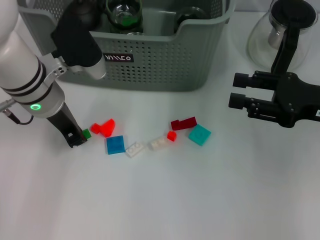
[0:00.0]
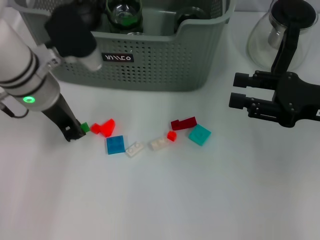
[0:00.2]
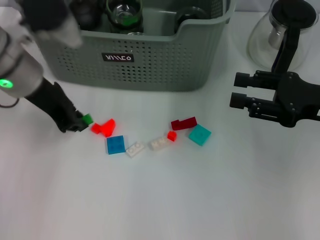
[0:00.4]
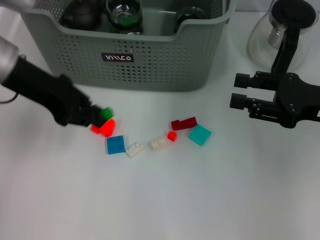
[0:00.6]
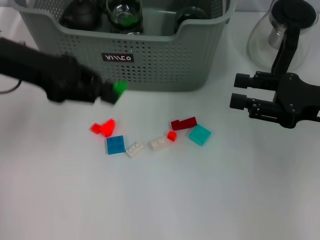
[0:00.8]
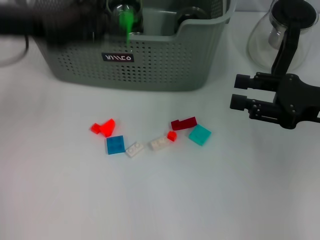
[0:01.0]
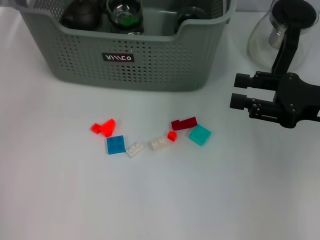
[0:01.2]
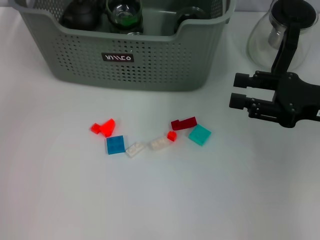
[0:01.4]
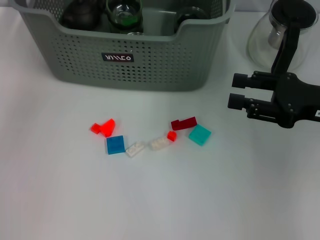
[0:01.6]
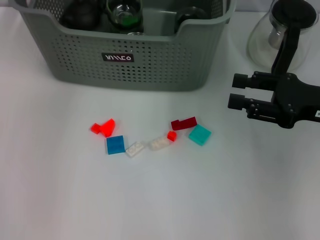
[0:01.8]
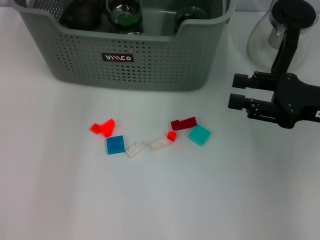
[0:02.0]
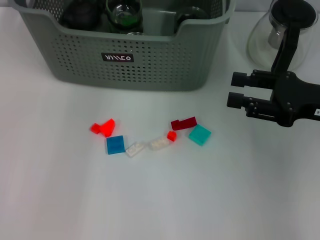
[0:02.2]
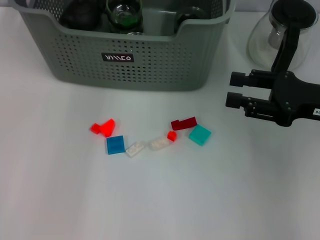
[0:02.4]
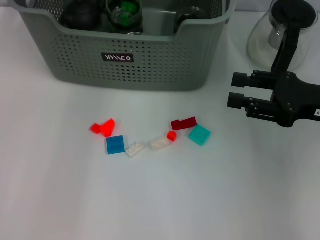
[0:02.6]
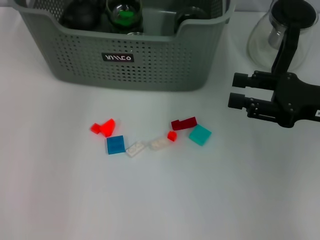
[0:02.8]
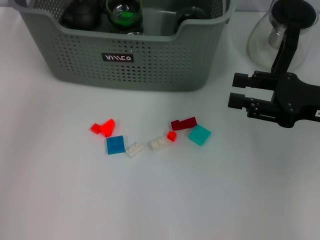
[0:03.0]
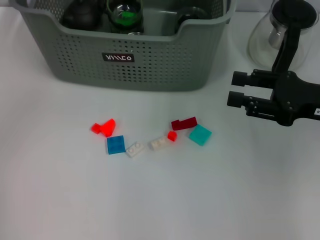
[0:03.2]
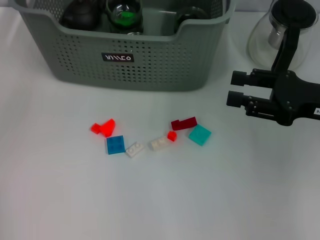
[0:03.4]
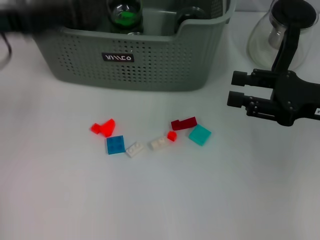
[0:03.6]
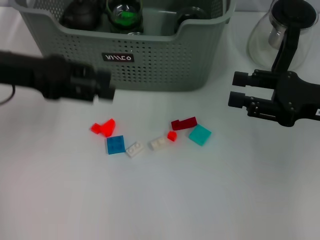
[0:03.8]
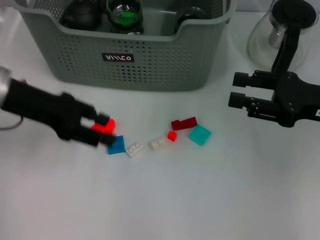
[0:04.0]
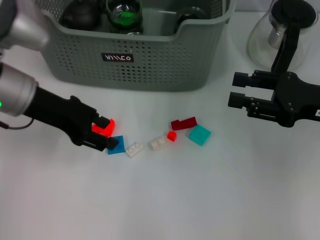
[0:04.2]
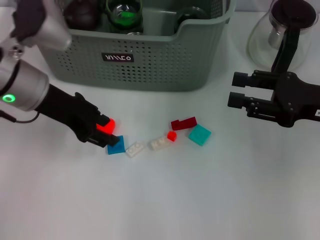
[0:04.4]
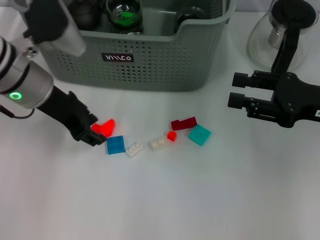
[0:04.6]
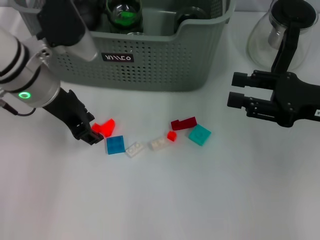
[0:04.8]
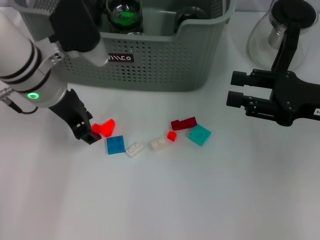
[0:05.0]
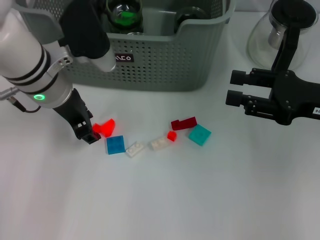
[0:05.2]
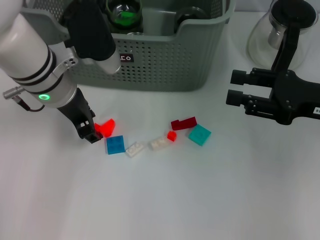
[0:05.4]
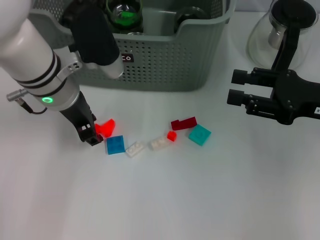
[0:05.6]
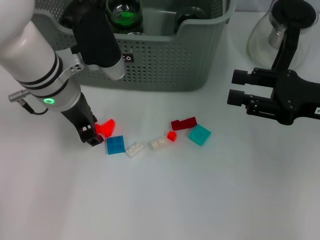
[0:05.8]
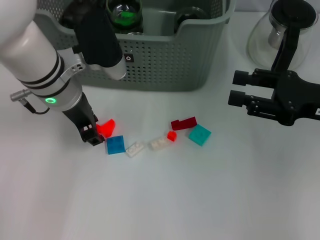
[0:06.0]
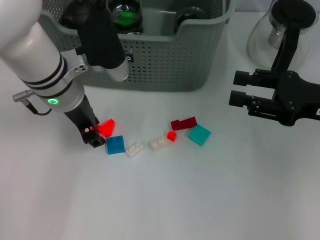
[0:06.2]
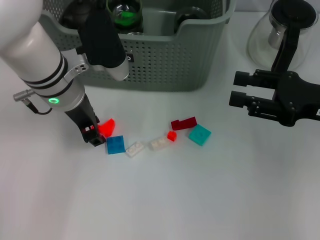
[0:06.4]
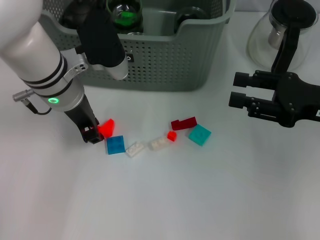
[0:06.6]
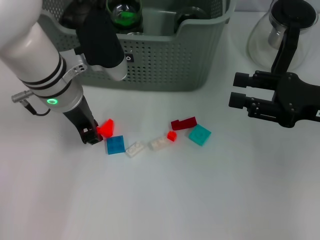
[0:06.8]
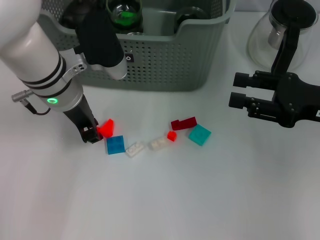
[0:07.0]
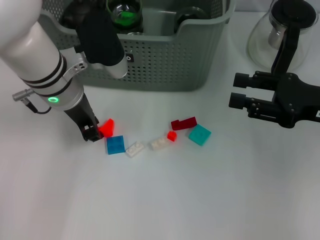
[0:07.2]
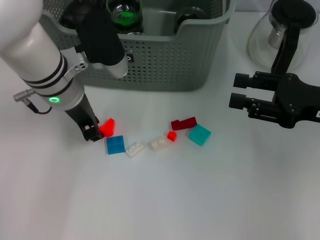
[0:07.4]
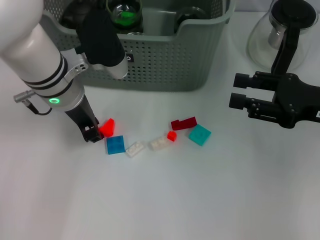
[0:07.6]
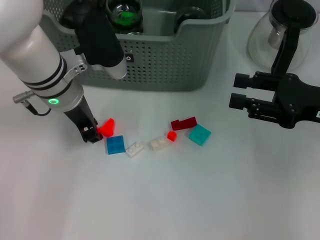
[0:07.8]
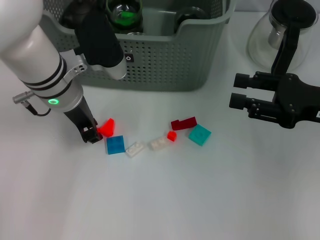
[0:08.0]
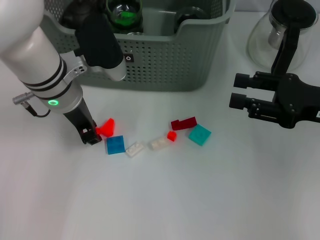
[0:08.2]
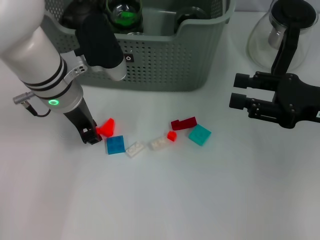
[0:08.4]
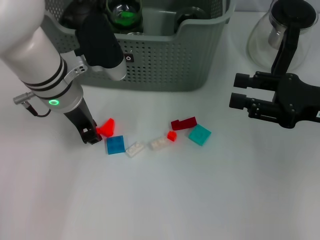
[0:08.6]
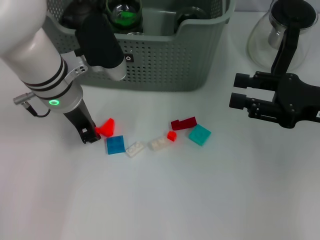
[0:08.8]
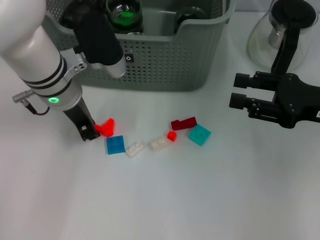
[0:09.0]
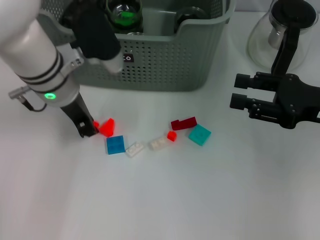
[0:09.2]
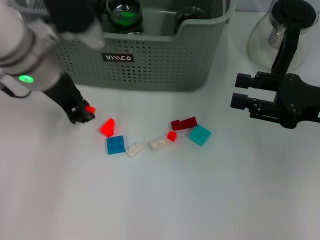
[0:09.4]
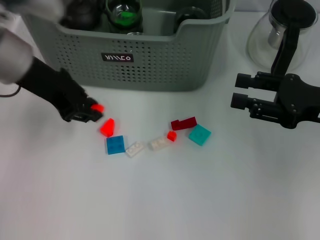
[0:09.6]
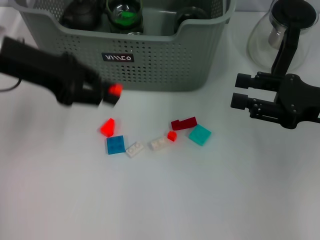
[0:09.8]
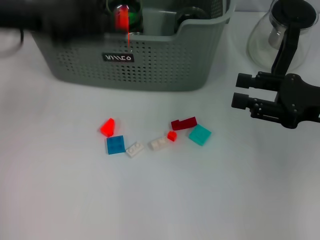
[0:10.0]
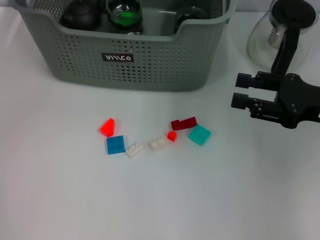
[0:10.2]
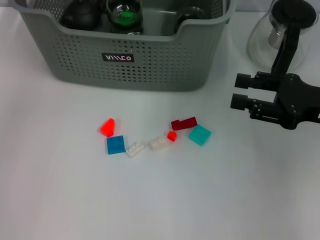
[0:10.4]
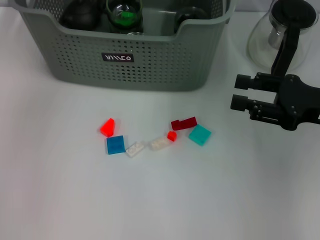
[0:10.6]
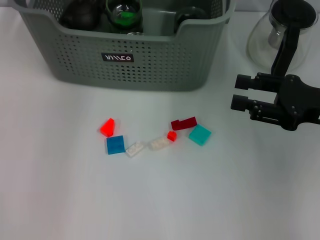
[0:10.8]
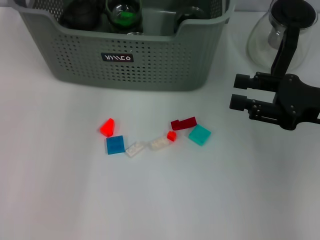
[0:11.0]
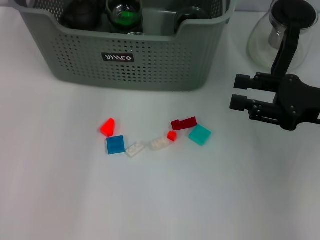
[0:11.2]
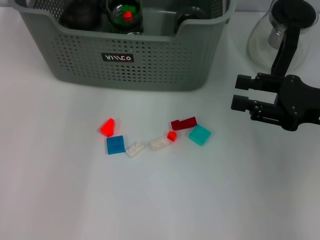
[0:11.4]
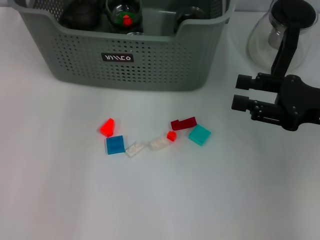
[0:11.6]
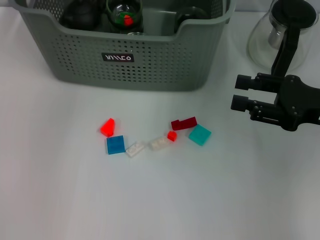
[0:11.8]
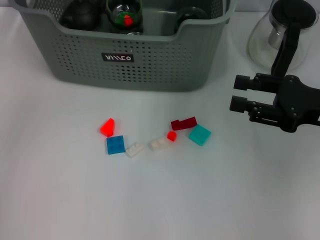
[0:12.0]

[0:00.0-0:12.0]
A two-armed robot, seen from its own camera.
Task of the whole recording: pick up the teacup on the table and place it into the storage bin, pick up the block on the table and place it into the storage bin.
Step, 0:00.0 to 0:02.8: Place the green block in the storage box with left gripper.
Step, 0:03.0 to 0:08.6: Grasp the orange block with left gripper.
Step, 0:09.0 to 0:11.6: Place the orange block in the storage box with left gripper.
0:00.0 to 0:01.6: The left gripper shifts some 20 cm upward and forward.
0:03.0 to 0:04.4: The left gripper travels downward and backward by approximately 15 cm.
0:04.4 to 0:06.0: The left gripper travels to the right by roughly 5 cm.
0:06.0 to 0:09.0: Neither gripper changes place.
0:09.0 to 0:10.4: The left gripper travels upward, forward and to the left by about 20 cm.

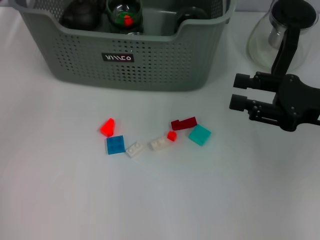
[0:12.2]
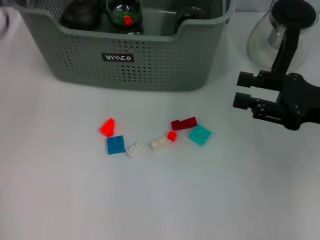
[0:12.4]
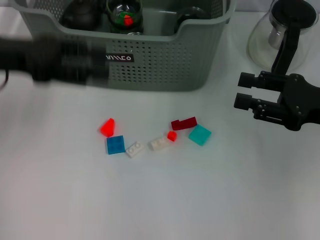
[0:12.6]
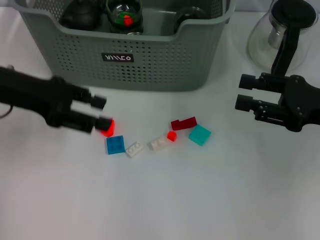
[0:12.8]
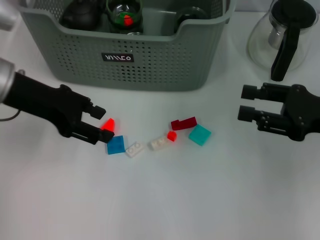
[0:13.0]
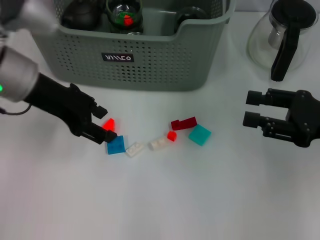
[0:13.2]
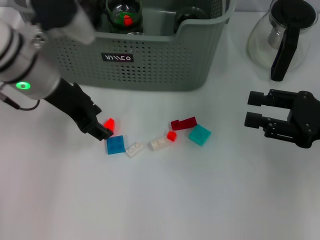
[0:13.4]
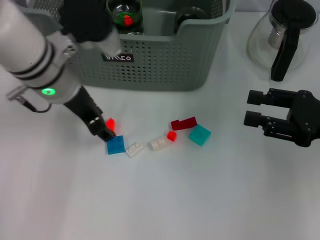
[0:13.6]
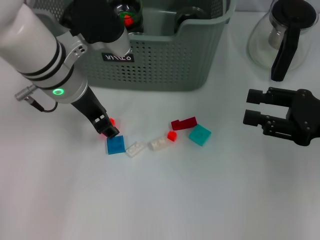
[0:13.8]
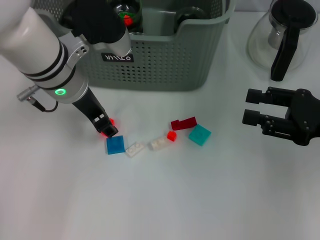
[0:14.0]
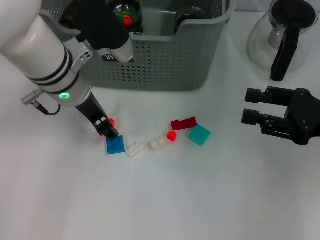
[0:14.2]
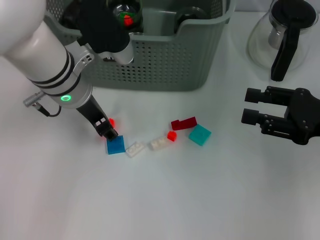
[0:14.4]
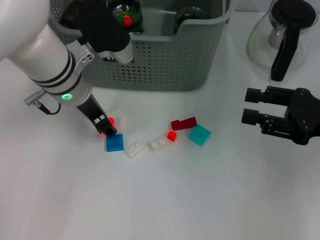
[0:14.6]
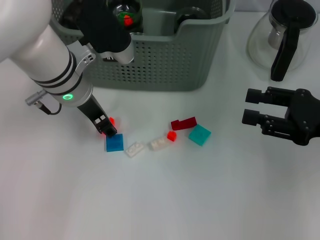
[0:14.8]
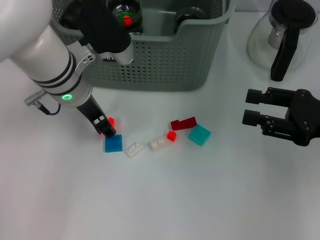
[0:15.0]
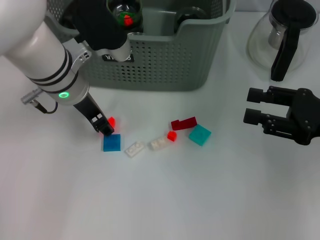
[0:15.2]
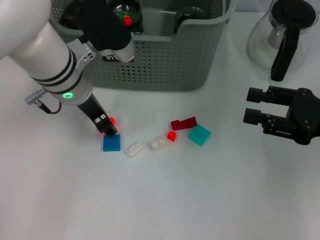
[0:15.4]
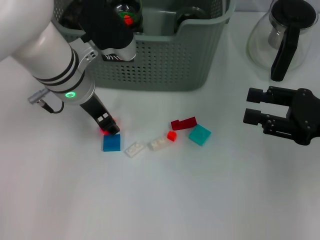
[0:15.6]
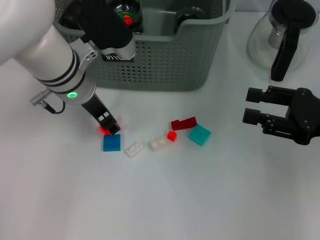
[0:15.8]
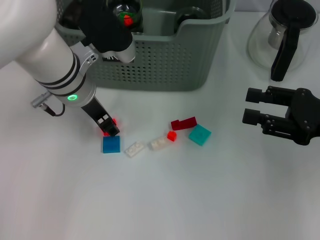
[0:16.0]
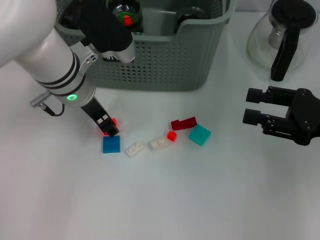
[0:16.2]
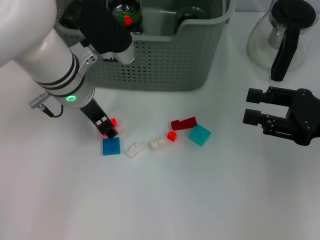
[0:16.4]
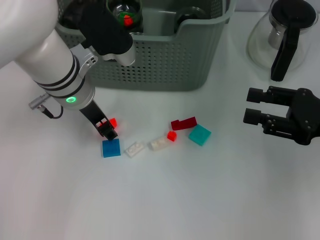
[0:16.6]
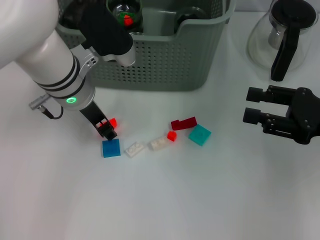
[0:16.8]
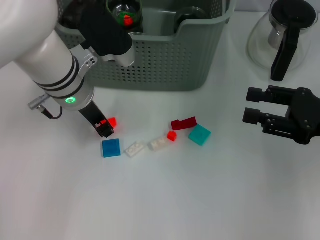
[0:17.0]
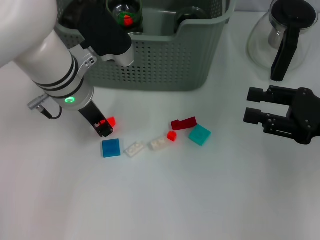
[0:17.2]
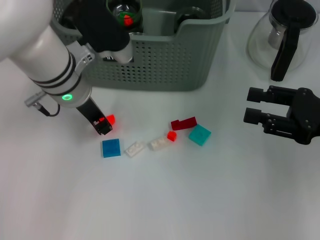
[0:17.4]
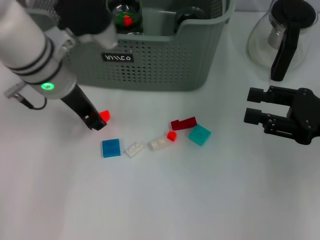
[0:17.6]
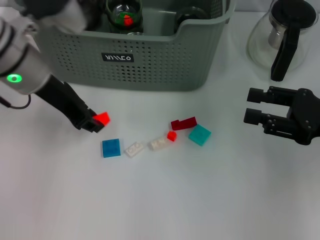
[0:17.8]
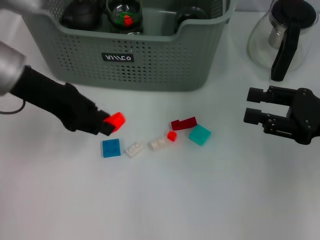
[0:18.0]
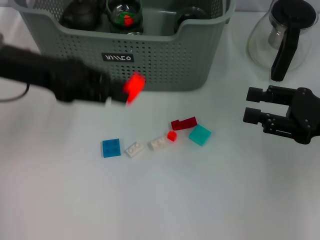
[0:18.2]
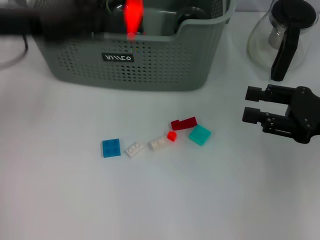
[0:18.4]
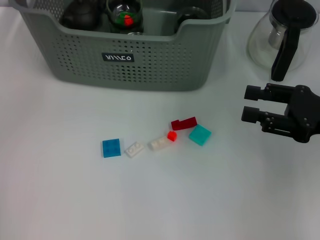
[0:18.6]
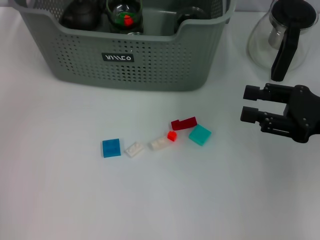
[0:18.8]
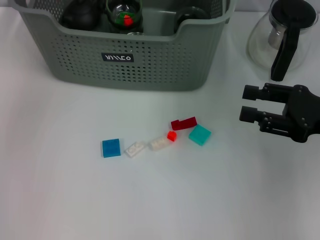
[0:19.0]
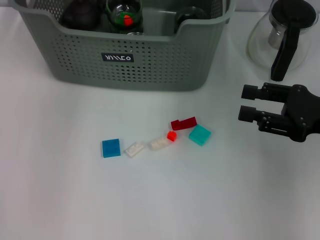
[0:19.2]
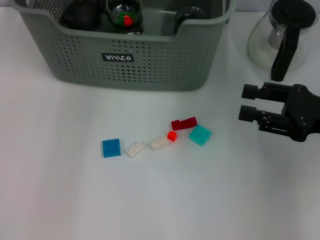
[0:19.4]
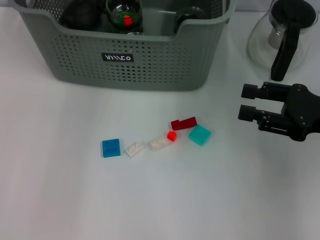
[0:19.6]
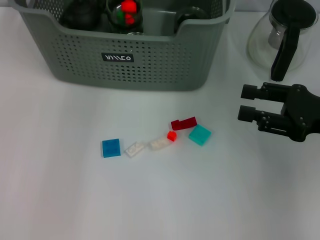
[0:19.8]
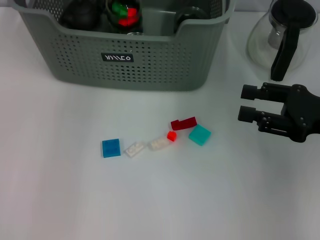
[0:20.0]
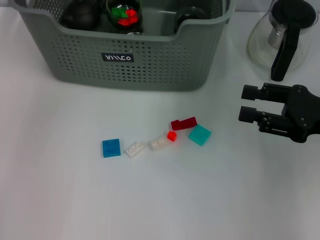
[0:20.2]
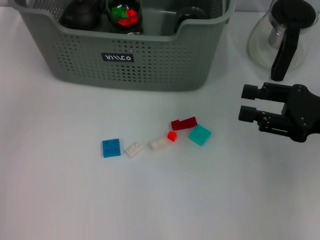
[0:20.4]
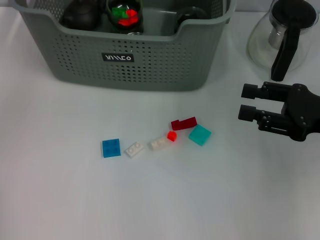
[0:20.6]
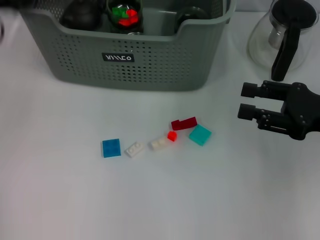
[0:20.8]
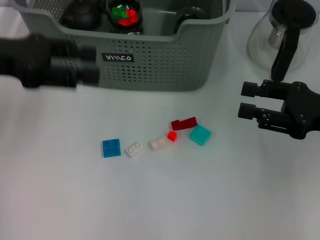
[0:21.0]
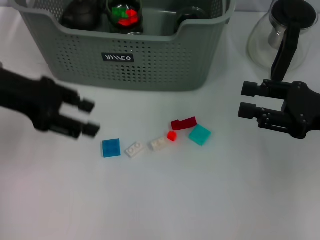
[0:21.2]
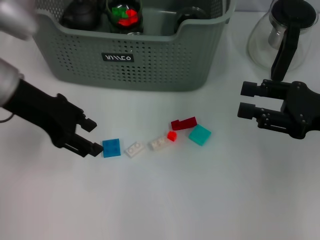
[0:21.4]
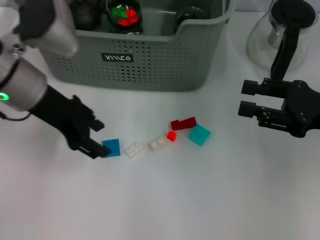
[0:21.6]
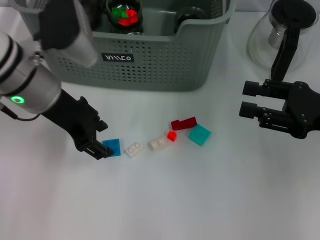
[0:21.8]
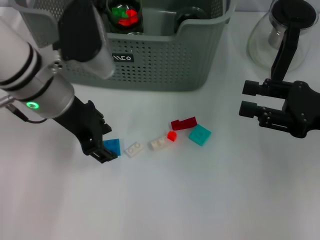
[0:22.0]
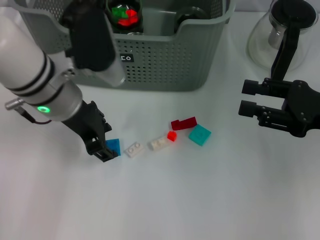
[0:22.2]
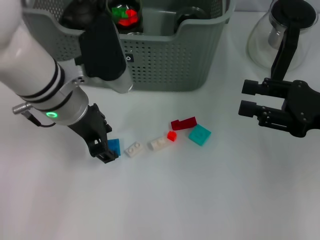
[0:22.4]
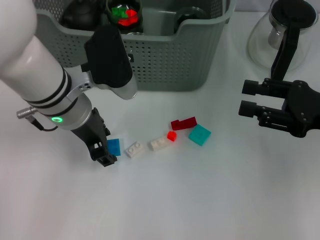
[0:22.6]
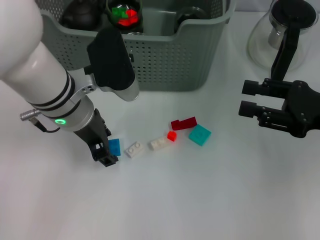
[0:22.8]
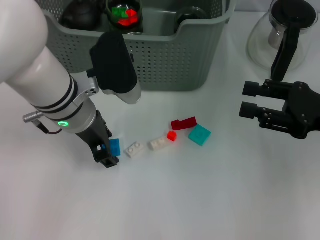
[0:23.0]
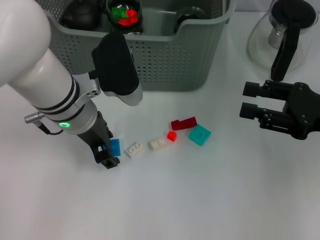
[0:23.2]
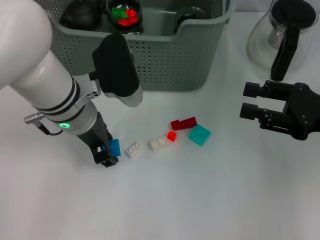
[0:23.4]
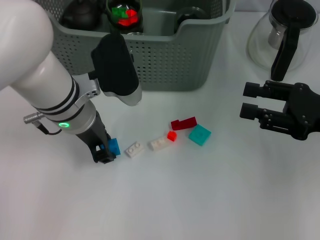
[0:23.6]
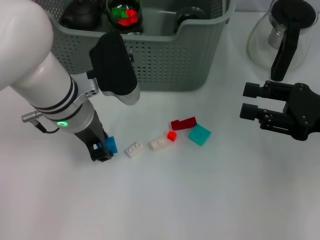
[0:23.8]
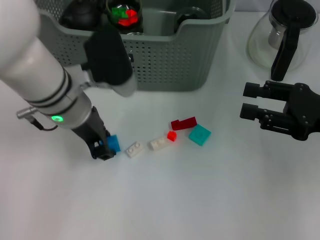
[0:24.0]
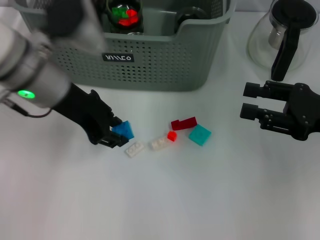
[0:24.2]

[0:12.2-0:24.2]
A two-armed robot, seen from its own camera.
Task of the whole recording: pick up the teacup on the table and place it into the storage bin, pick up the block on the table and place it into the storage bin.
Step, 0:12.2 to 0:17.2: Grasp the orange block with left gripper.
Step, 0:17.4 to 0:19.6: Place the orange block in the storage box with left gripper.
Step, 0:20.0 to 0:23.4: Grasp the dark blue block with left gripper.
0:12.2 to 0:13.8: The left gripper is displaced to the right and downward by approximately 15 cm.
0:13.8 to 0:15.2: The grippers make only small movements.
0:15.2 to 0:16.6: The two grippers keep their place.
0:16.6 to 0:18.2: The left gripper is displaced to the left and upward by some 15 cm.
0:18.2 to 0:19.8: The left gripper moves forward and to the right, about 20 cm.
0:19.8 to 0:21.2: The left gripper shifts about 20 cm backward and to the left, and opens its fingers.
0:21.2 to 0:22.6: The left gripper is displaced to the right and downward by about 15 cm.
0:22.6 to 0:24.2: The left gripper shifts by some 5 cm.
